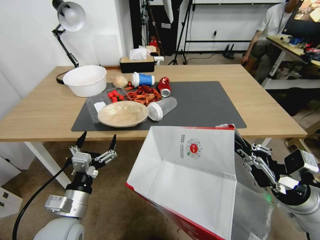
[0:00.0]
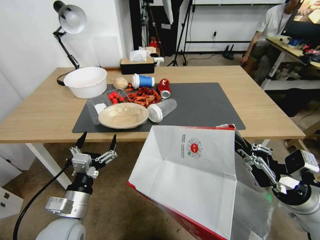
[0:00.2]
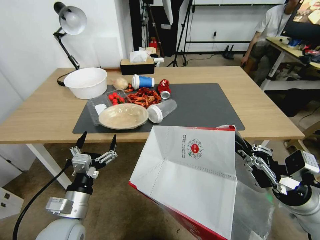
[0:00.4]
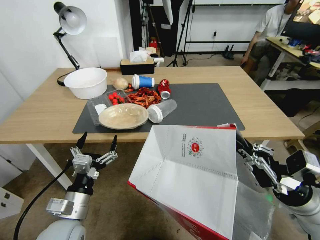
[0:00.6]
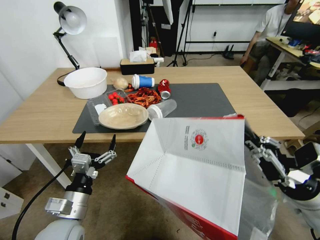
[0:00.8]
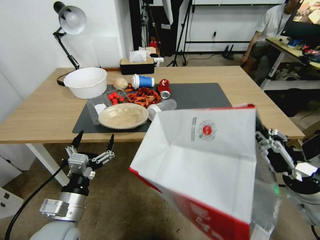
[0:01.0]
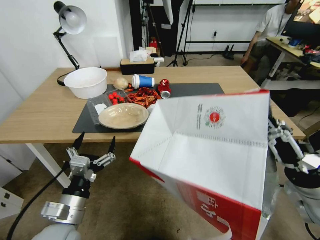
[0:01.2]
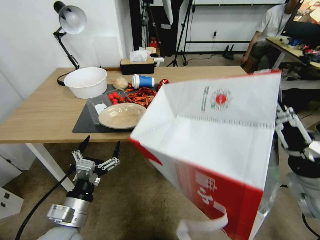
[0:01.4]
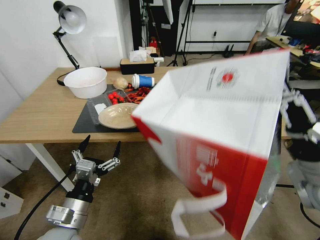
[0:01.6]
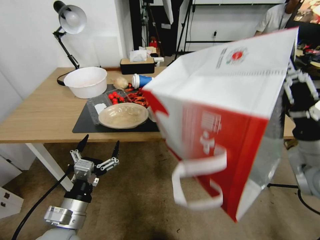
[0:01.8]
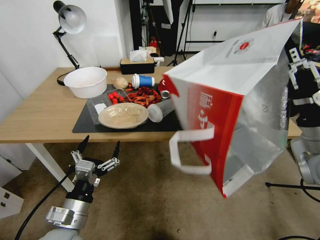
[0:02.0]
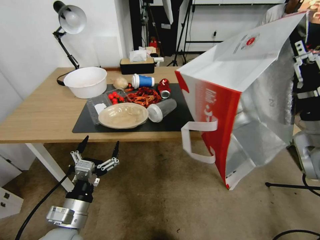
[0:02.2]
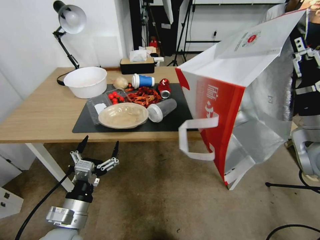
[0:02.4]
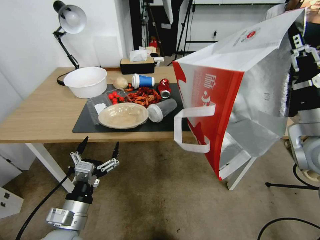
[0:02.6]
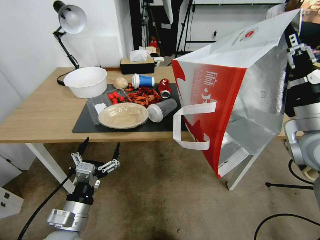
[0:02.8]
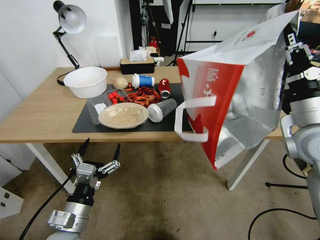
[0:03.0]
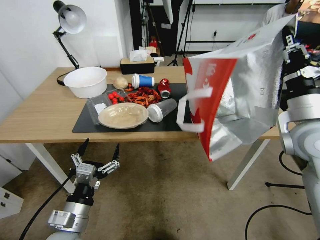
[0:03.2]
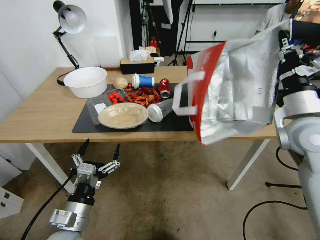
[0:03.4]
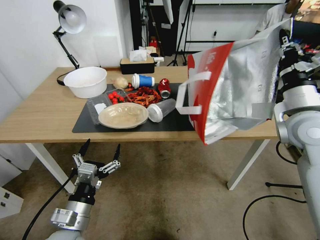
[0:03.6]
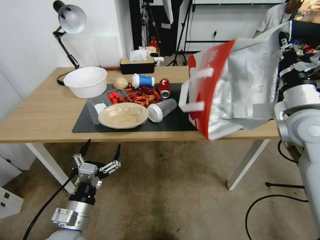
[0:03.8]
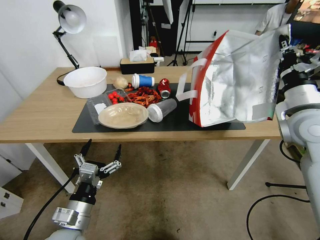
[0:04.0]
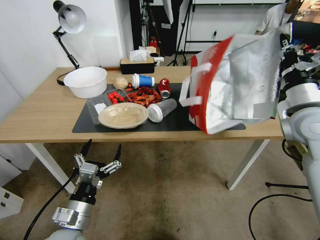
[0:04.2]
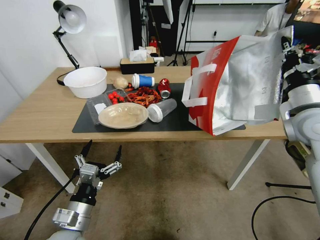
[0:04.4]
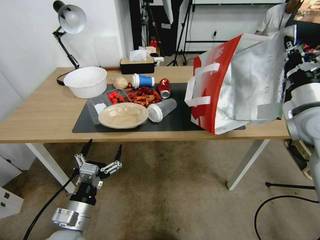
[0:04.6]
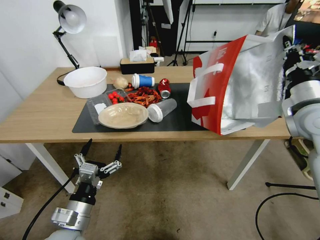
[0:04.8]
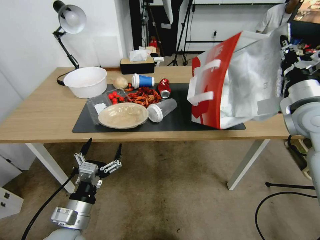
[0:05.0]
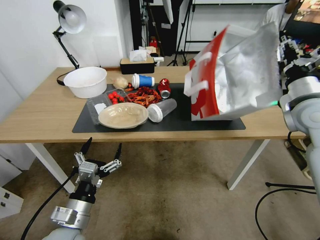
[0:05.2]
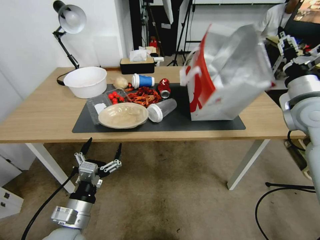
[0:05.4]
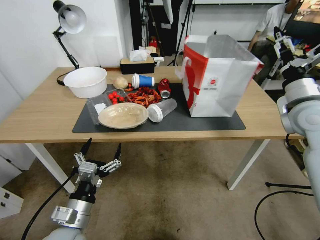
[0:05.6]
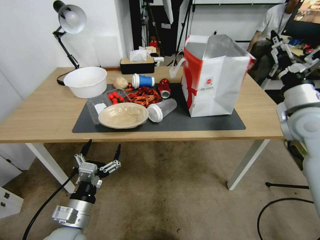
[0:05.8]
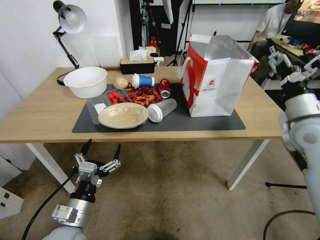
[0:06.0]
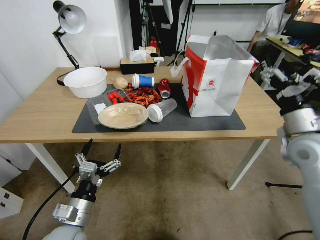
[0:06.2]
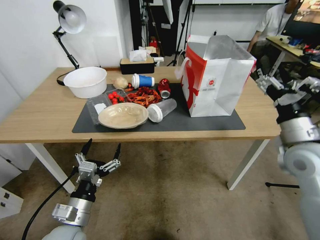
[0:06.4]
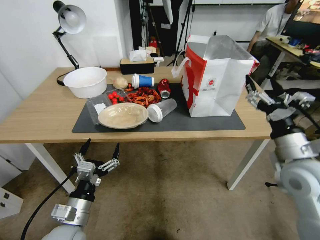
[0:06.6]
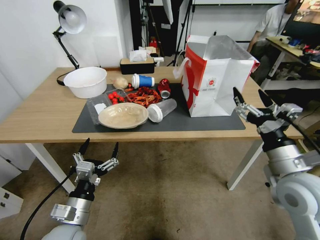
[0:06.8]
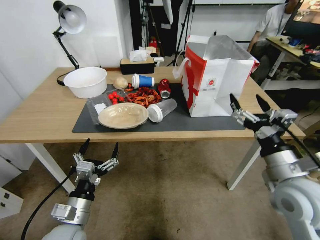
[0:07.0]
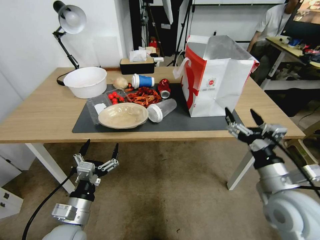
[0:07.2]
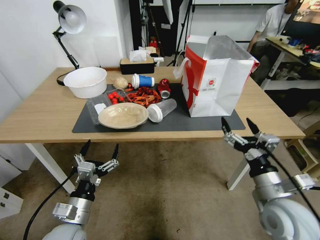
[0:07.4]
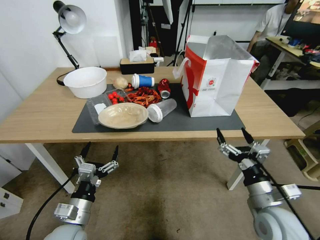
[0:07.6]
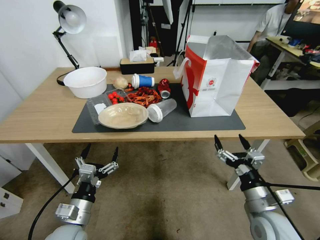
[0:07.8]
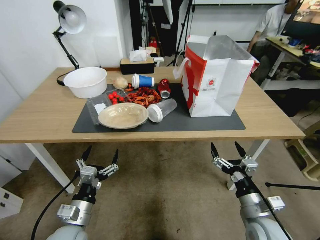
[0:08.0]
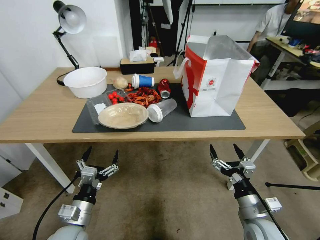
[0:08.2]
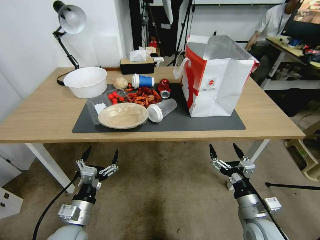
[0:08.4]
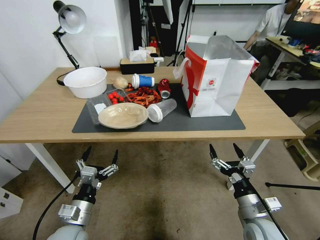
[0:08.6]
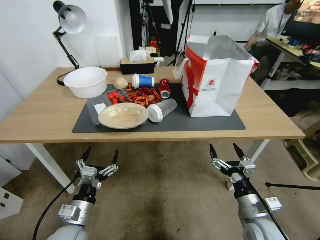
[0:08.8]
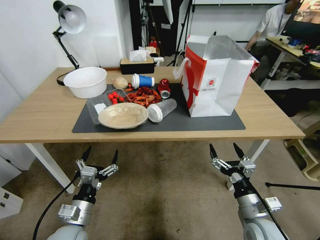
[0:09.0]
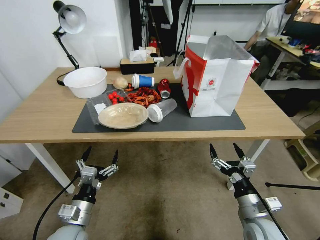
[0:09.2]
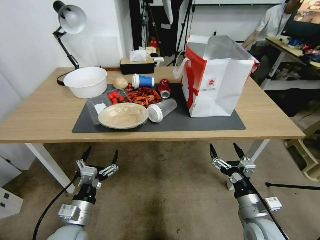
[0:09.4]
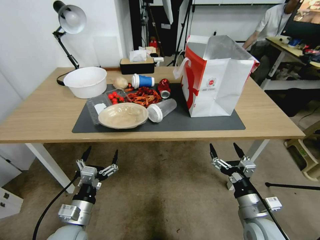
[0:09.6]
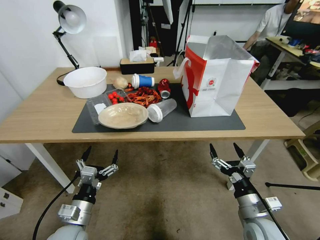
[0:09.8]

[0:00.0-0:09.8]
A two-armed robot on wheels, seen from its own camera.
Task of the whole recording: Pick up the food delivery bag from the floor and place it on the table.
0:00.0 to 0:01.4: The right gripper heads upward, covering some 5 cm.
0:01.4 to 0:02.8: The right gripper travels forward and upward by roughly 10 cm.
0:02.8 to 0:04.2: The right gripper heads forward, covering roughly 5 cm.
0:04.2 to 0:05.6: The right gripper opens up.
0:05.6 to 0:07.0: The right gripper moves backward, downward and to the left, approximately 20 cm.
0:07.0 to 0:08.4: The right gripper is displaced downward by roughly 15 cm.
0:08.4 to 0:09.8: Both grippers stay about where they are.

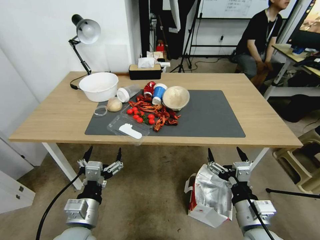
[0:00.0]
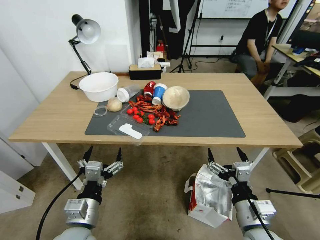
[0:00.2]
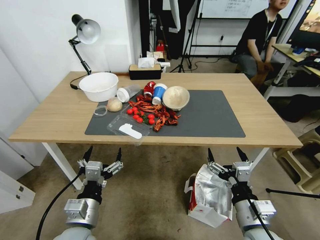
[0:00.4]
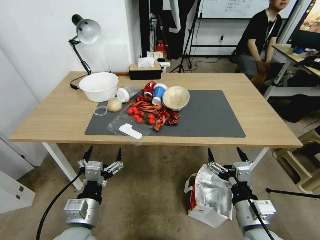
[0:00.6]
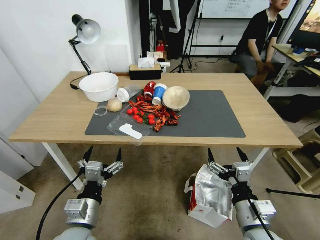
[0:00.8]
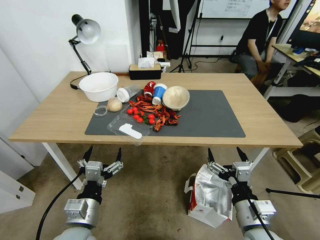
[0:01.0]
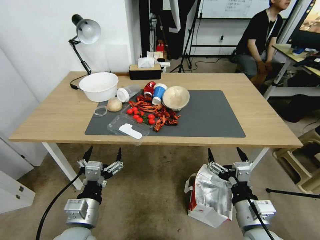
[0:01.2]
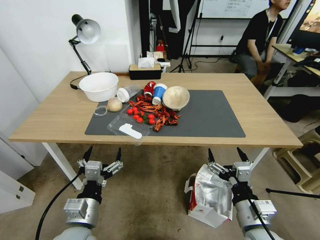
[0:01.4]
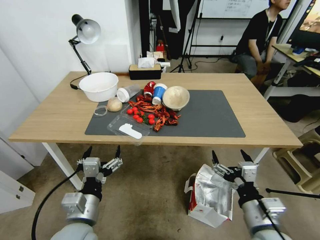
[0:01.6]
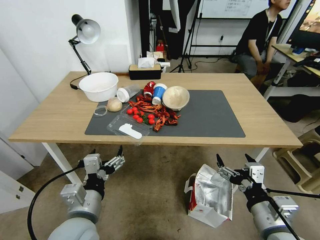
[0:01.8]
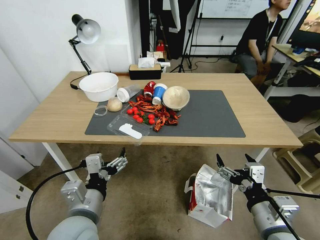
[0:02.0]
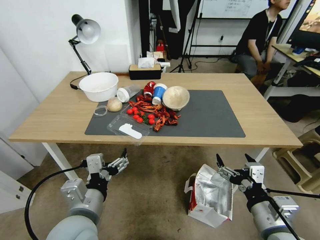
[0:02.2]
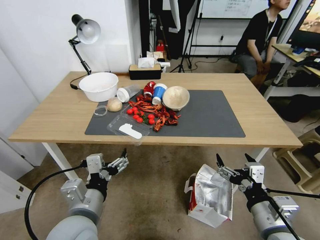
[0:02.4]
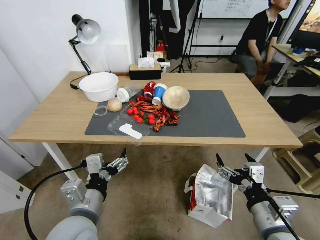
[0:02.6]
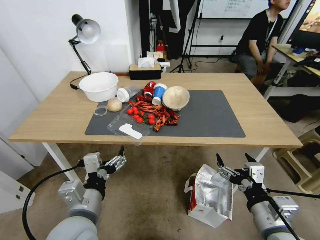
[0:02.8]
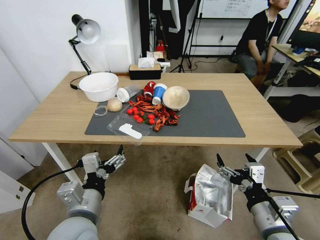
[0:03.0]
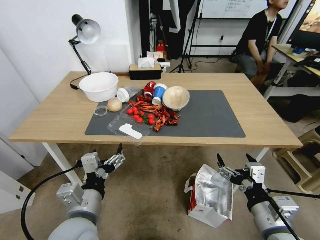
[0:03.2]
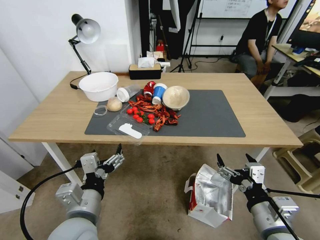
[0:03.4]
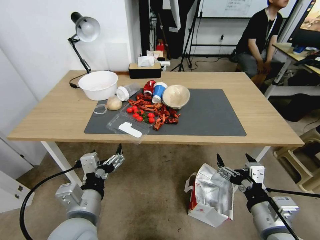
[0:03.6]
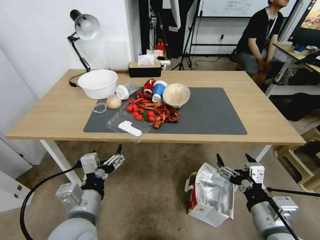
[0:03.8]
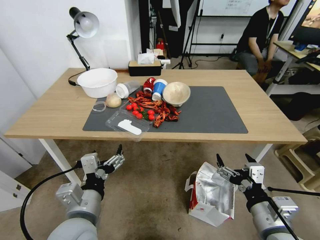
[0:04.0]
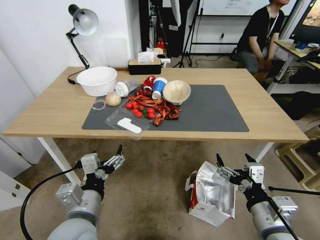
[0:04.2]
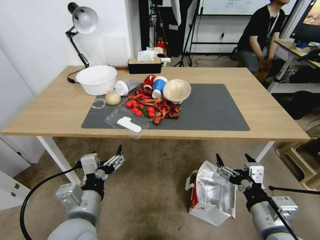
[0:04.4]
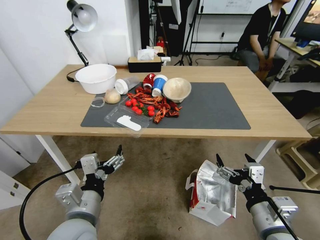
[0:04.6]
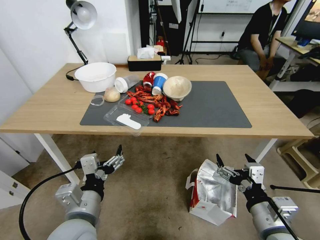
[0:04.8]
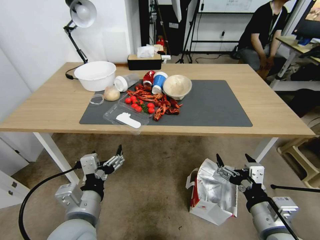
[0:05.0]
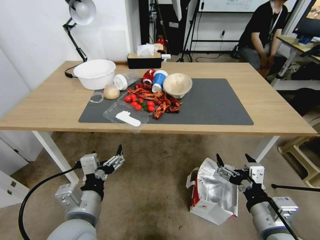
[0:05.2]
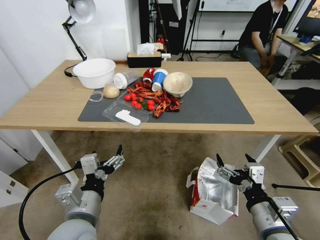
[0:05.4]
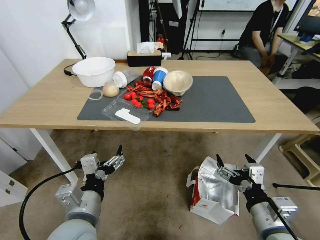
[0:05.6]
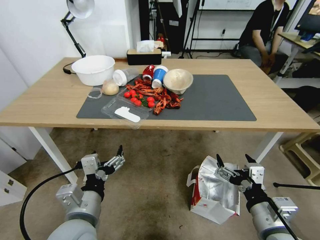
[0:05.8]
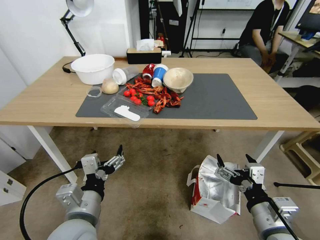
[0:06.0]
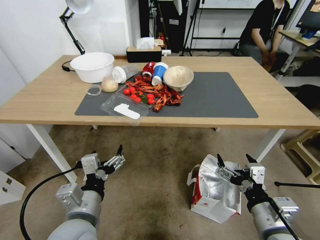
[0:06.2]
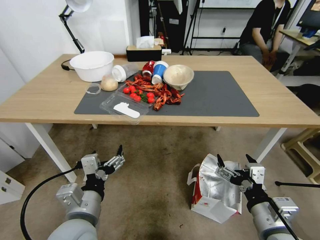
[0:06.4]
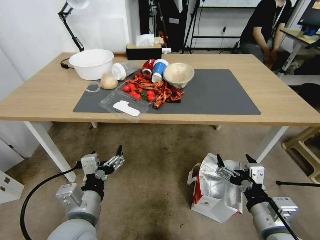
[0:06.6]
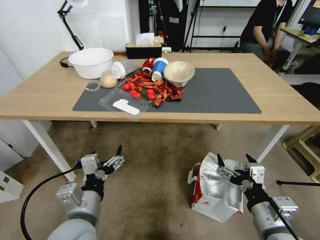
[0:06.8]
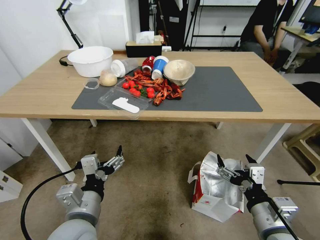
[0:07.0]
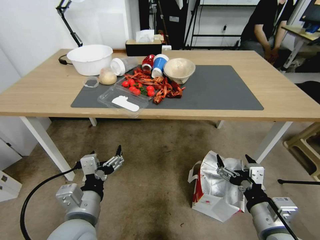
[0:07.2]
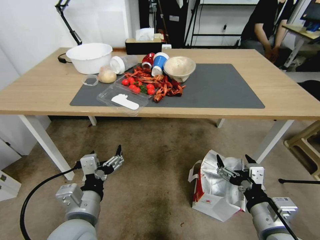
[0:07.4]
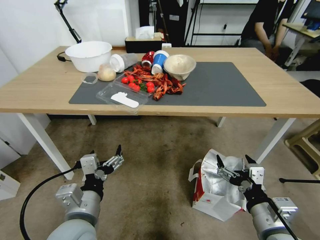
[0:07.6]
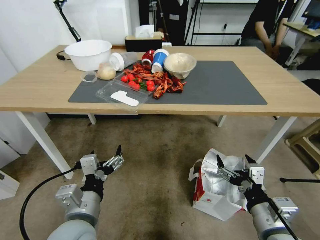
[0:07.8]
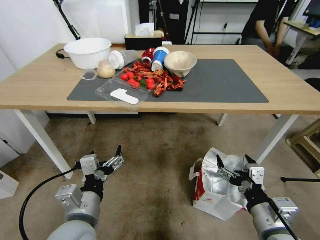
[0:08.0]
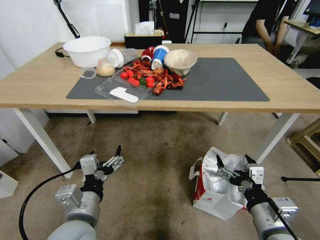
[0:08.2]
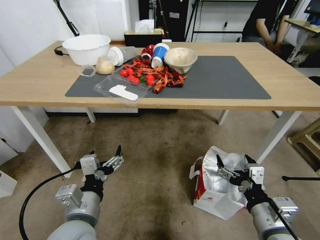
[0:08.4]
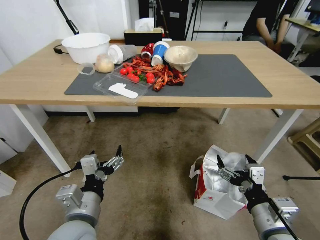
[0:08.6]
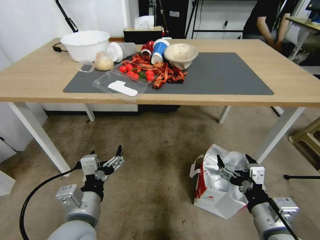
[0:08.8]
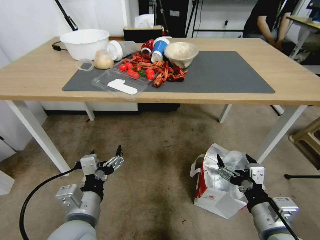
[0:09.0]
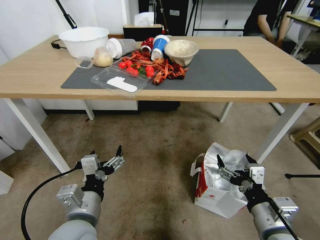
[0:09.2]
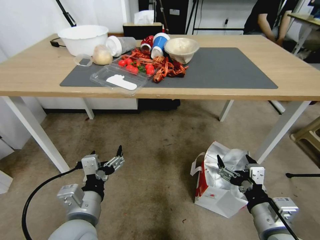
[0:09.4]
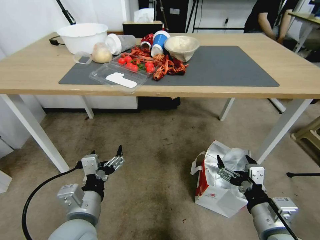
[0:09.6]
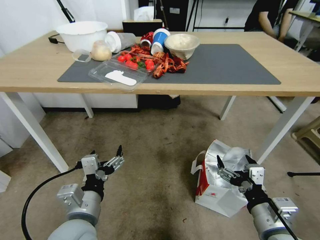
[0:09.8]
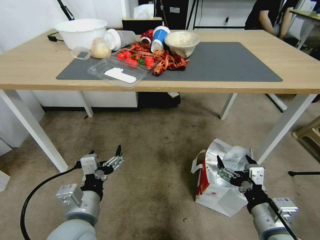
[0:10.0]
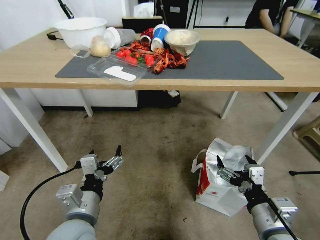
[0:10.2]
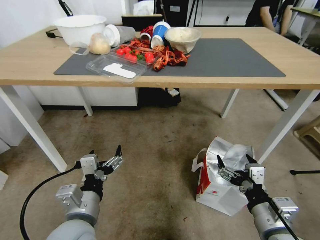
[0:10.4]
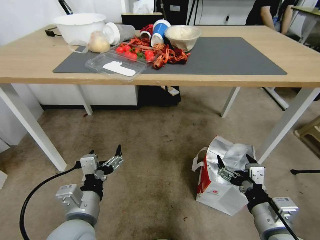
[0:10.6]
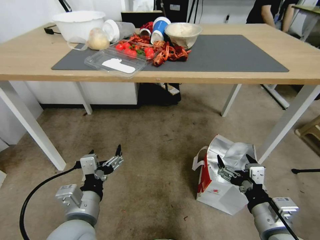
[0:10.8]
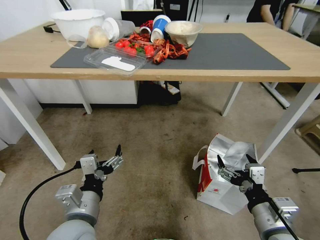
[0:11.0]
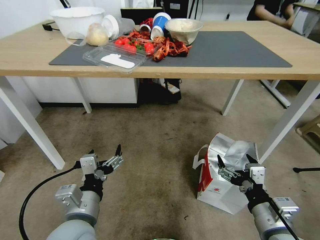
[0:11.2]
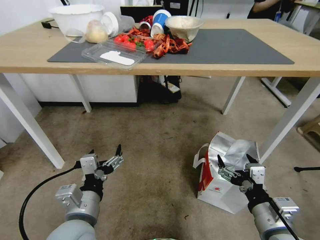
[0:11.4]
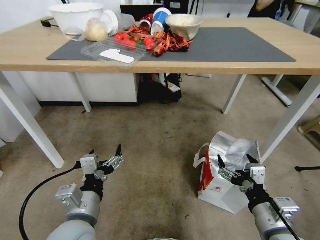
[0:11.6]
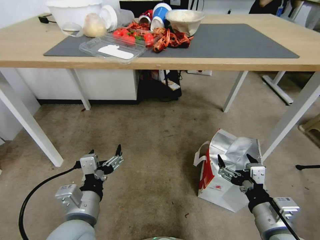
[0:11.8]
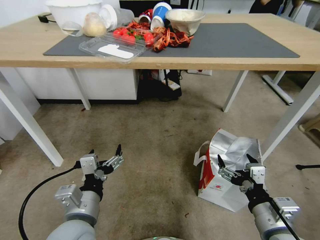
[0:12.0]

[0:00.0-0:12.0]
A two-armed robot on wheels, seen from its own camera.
Task of the whole recording: Pick up the food delivery bag from the floor and place it on the table.
0:01.6 to 0:03.0: The grippers move only a little.

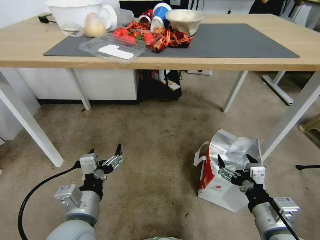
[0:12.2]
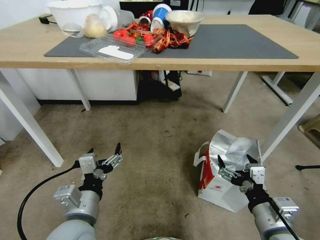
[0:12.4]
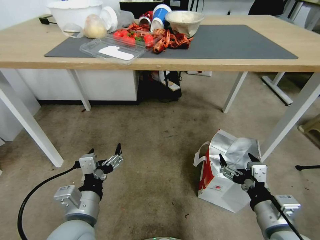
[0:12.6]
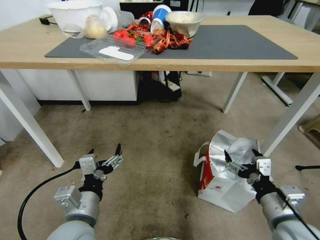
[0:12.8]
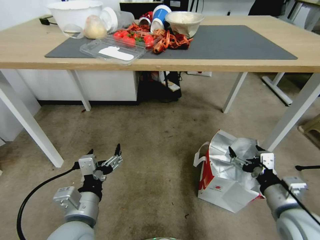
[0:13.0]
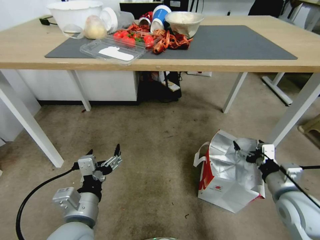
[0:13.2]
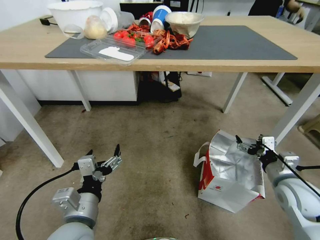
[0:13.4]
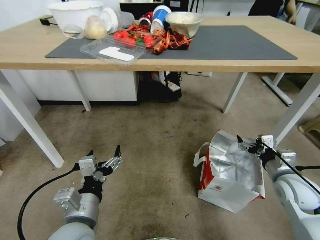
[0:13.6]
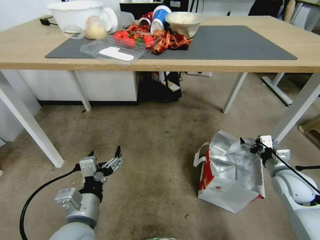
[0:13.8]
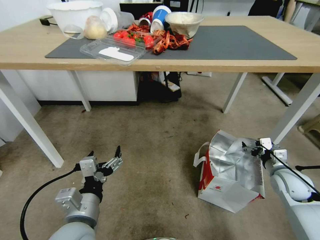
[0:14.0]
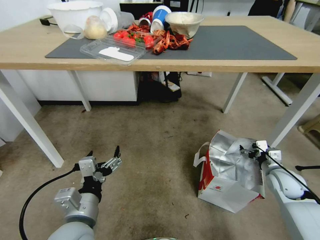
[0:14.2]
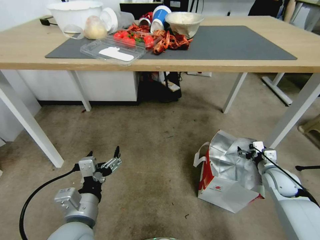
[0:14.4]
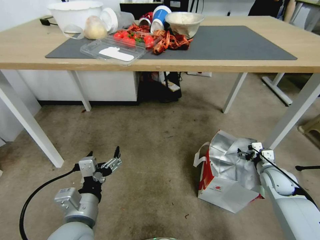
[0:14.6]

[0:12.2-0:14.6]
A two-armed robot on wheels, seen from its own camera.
Task of the whole recording: Pick up the food delivery bag from the floor and place it on the table.
0:12.2 to 0:13.4: The right gripper travels forward and to the right by roughly 15 cm.
0:13.4 to 0:14.6: The right gripper shifts some 10 cm downward and forward.
